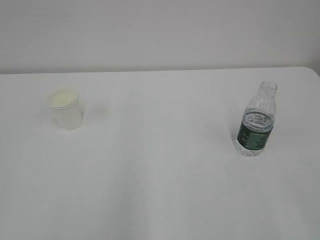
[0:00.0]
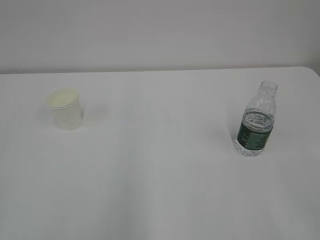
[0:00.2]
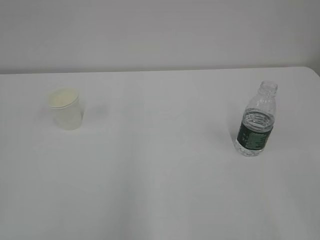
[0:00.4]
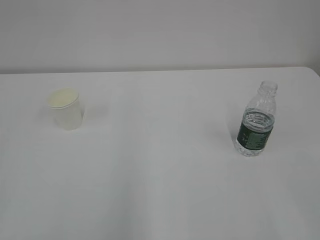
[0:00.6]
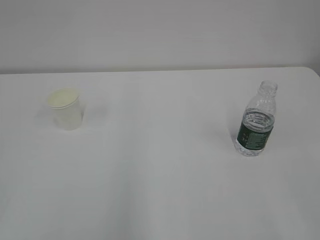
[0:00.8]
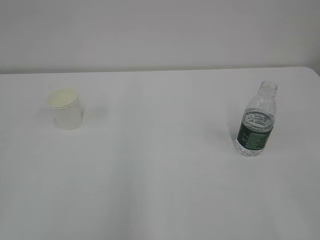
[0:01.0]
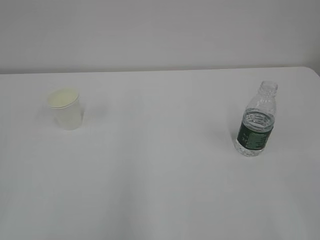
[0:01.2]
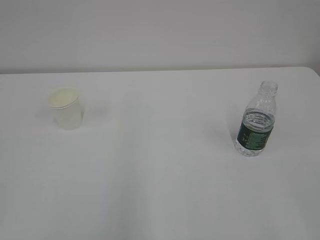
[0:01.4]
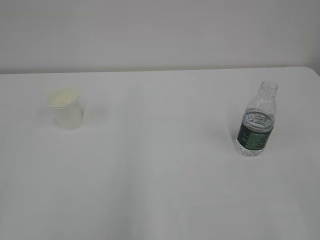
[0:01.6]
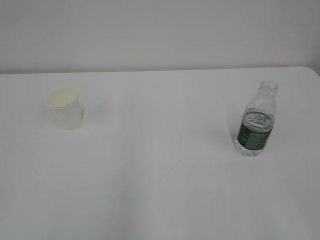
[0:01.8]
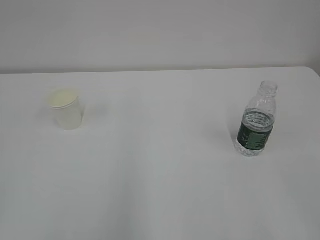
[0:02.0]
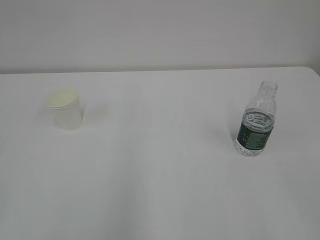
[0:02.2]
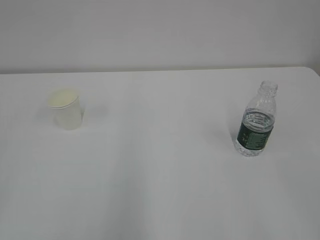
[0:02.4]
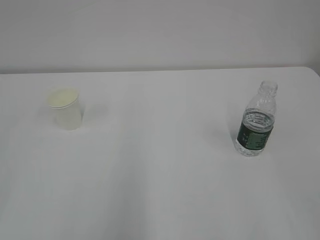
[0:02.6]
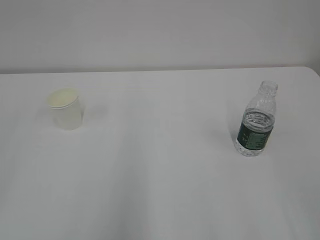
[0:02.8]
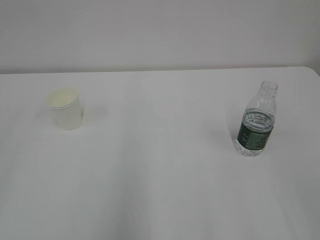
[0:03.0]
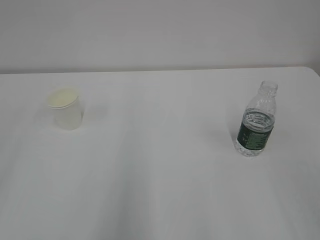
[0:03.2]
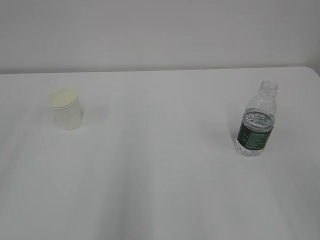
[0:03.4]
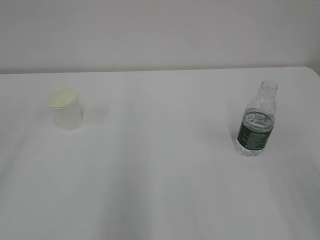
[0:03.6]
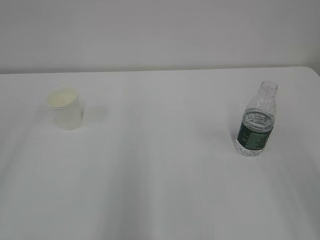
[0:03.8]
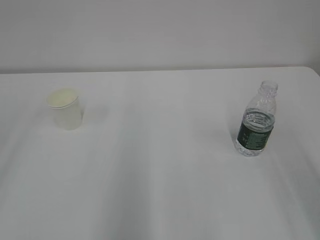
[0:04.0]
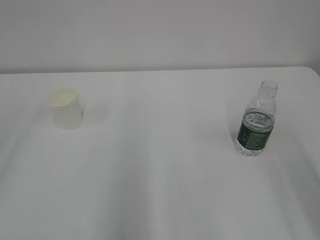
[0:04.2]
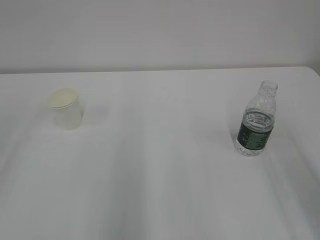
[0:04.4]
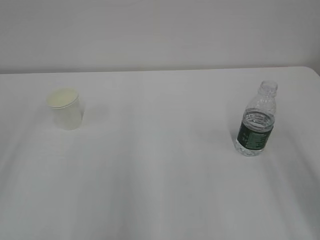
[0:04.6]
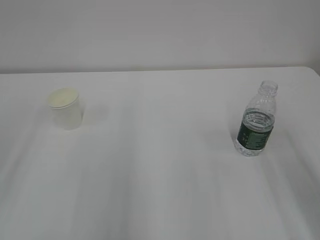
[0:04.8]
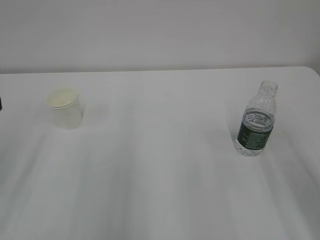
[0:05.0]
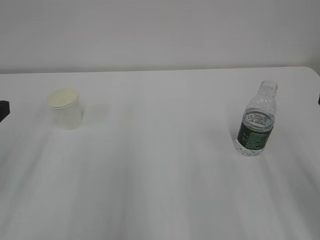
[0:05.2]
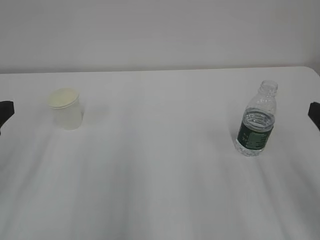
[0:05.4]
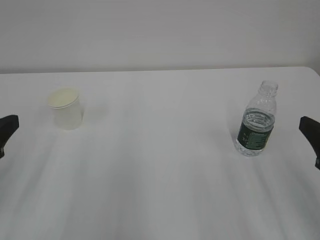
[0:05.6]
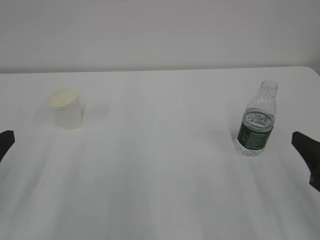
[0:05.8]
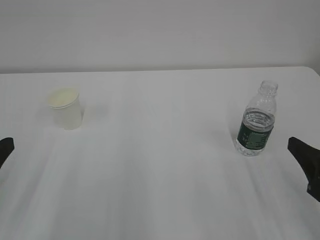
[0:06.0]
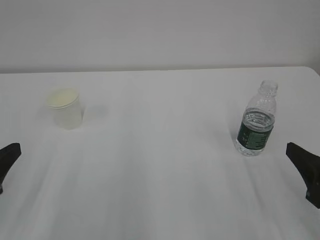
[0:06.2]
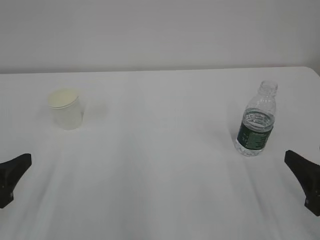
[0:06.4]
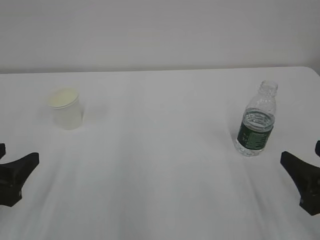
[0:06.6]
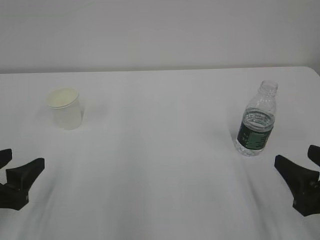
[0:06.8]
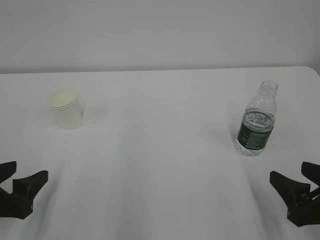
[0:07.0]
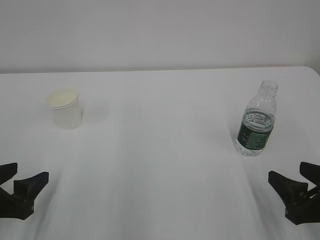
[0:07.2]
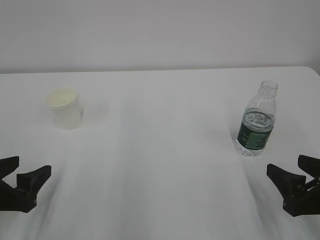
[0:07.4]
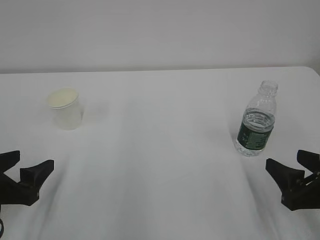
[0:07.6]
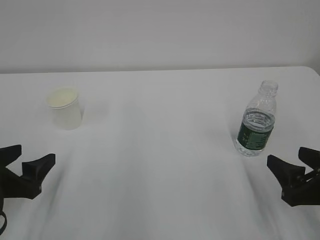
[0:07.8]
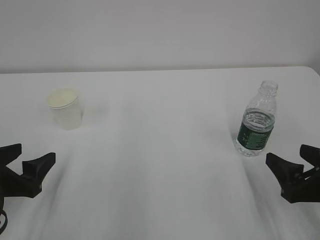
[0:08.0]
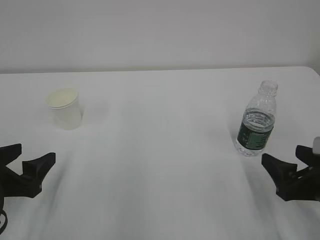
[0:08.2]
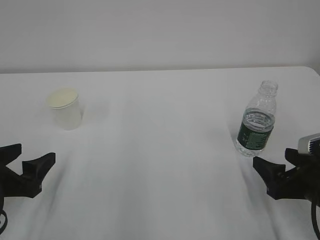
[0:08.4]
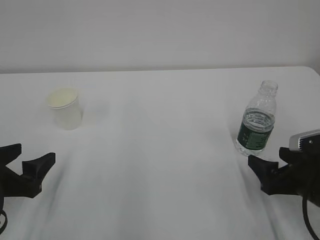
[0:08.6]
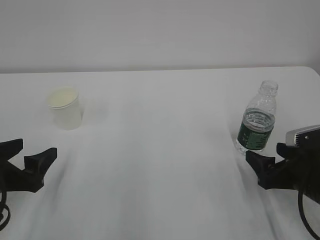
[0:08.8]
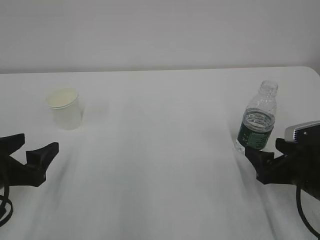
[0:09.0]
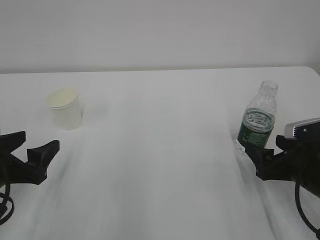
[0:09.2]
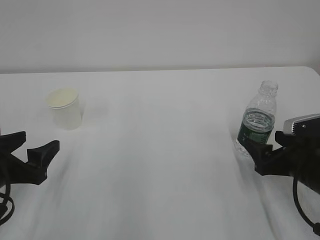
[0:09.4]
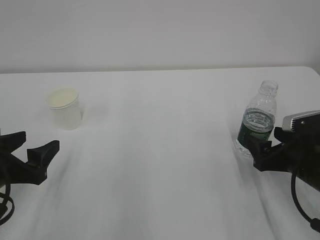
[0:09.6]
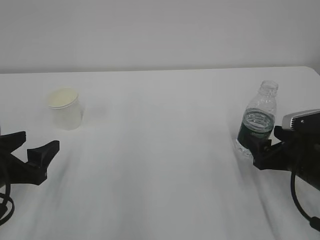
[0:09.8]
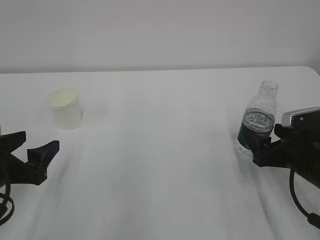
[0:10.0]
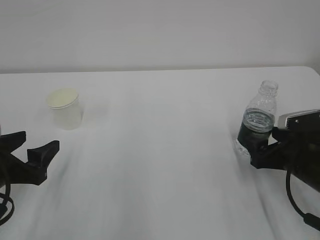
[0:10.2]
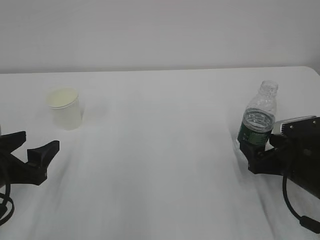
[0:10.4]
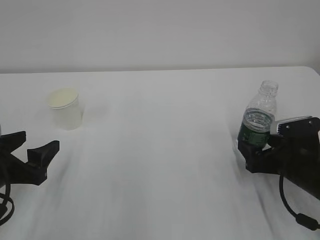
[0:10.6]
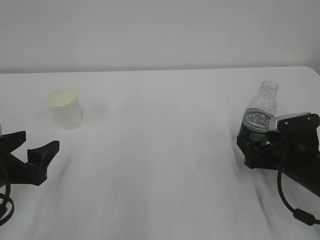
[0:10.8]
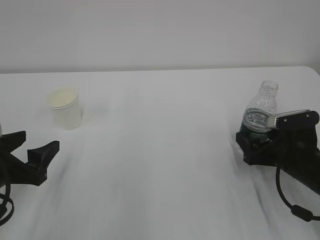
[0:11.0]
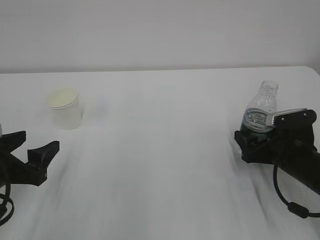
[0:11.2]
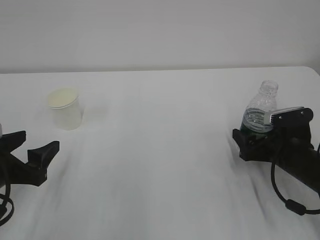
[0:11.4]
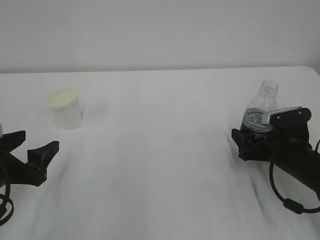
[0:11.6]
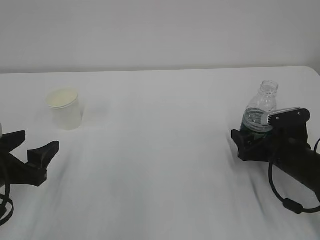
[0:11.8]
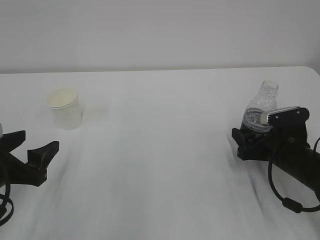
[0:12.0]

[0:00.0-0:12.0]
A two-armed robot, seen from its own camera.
0:04.4 to 0:06.0: The right gripper is displaced downward by roughly 10 cm.
0:06.0 to 0:07.6: Both grippers travel together downward, about 5 cm. The left gripper opens up.
0:07.6 to 0:09.0: The right gripper goes about 5 cm forward, and opens up.
0:09.0 to 0:10.4: The grippers stay close to where they were, moving slightly.
0:10.4 to 0:12.0: The right gripper closes.

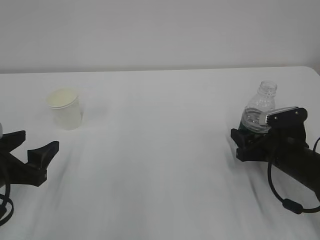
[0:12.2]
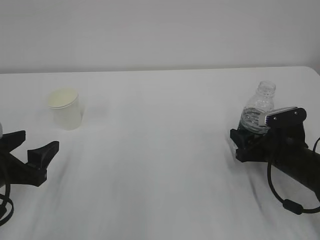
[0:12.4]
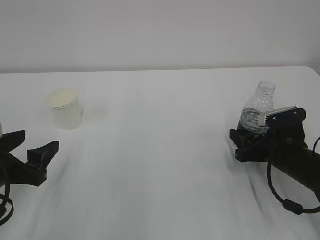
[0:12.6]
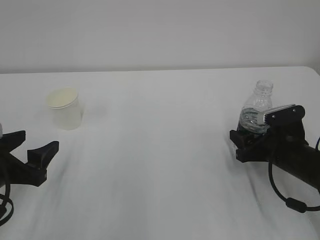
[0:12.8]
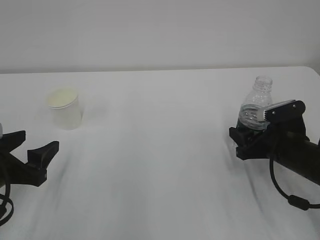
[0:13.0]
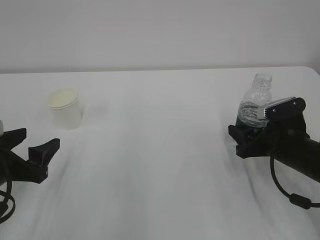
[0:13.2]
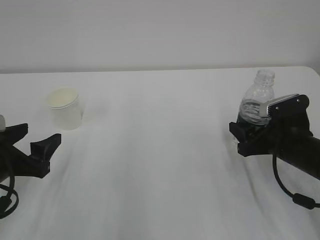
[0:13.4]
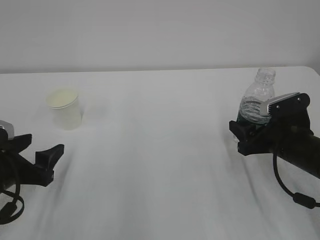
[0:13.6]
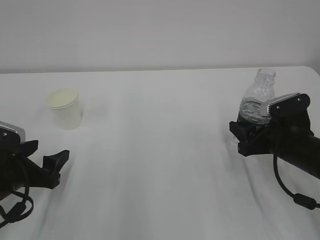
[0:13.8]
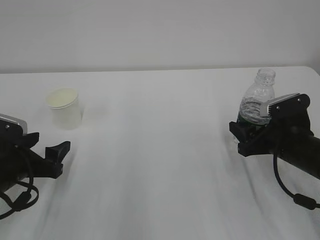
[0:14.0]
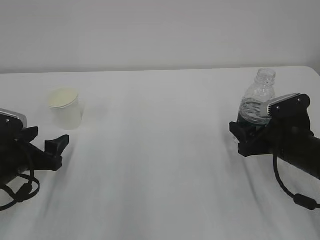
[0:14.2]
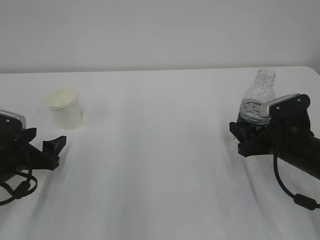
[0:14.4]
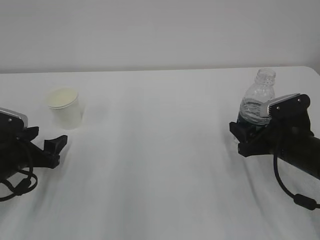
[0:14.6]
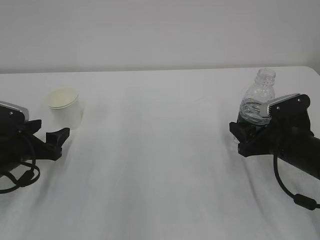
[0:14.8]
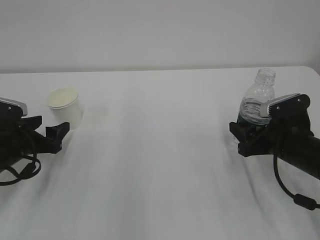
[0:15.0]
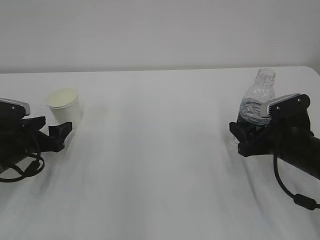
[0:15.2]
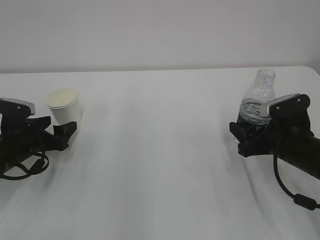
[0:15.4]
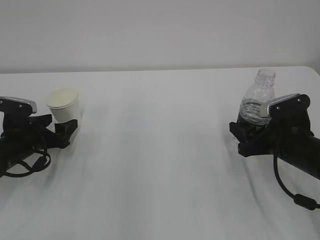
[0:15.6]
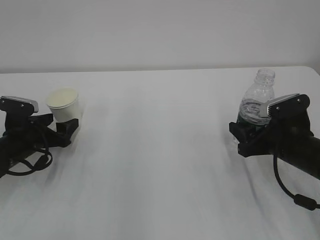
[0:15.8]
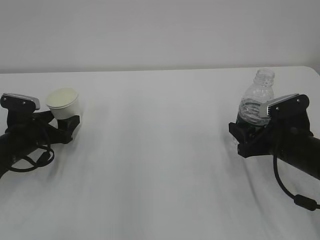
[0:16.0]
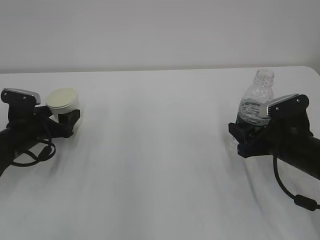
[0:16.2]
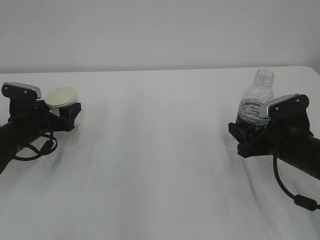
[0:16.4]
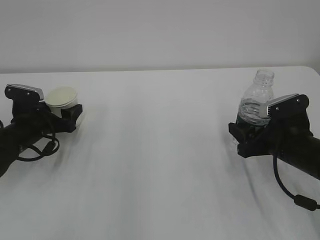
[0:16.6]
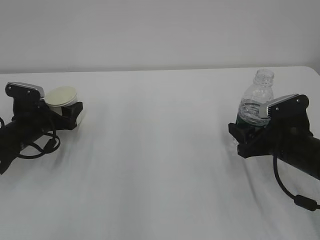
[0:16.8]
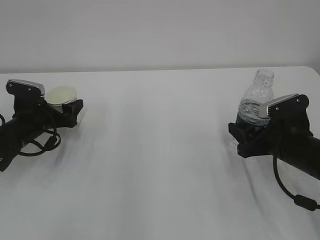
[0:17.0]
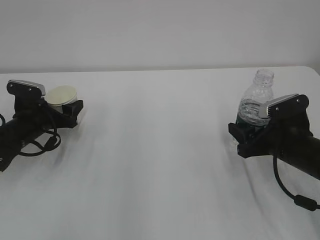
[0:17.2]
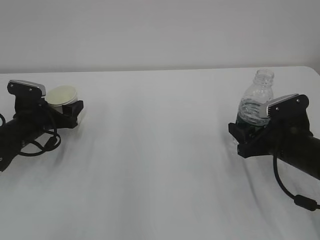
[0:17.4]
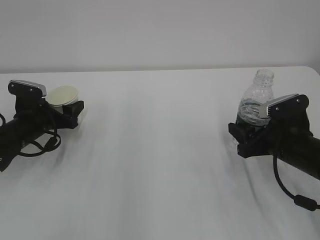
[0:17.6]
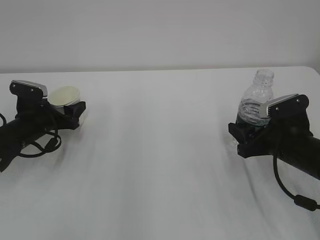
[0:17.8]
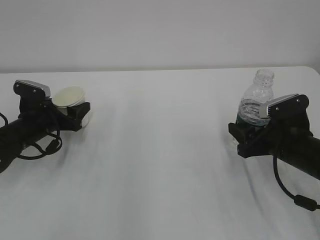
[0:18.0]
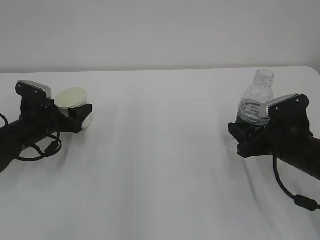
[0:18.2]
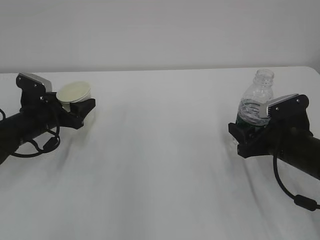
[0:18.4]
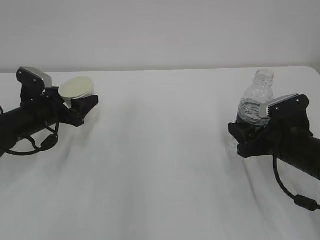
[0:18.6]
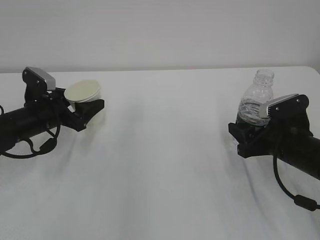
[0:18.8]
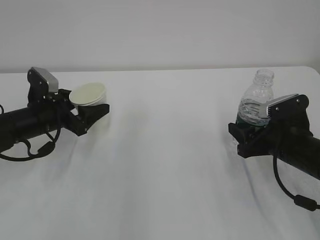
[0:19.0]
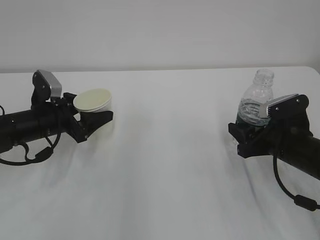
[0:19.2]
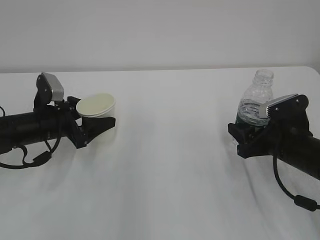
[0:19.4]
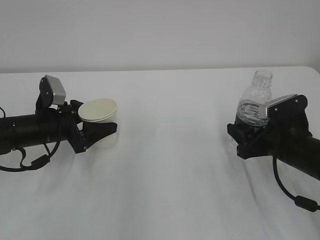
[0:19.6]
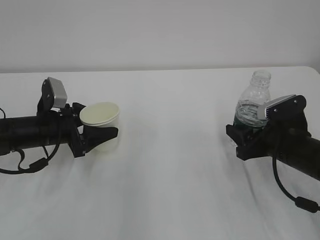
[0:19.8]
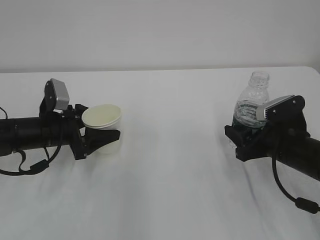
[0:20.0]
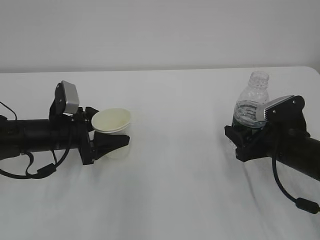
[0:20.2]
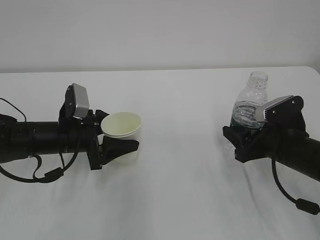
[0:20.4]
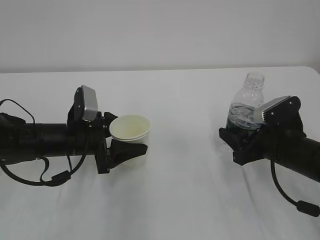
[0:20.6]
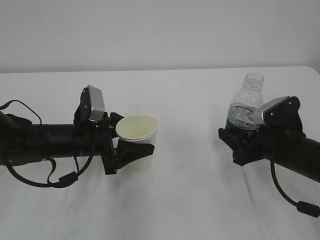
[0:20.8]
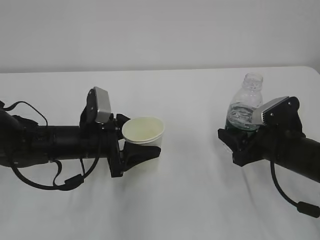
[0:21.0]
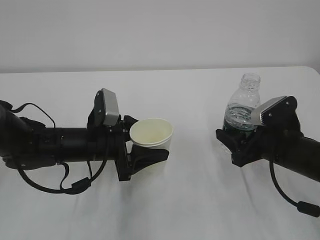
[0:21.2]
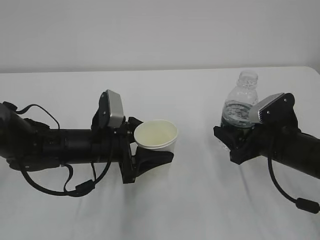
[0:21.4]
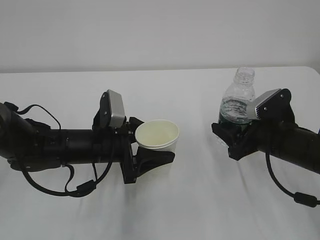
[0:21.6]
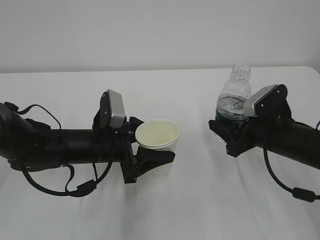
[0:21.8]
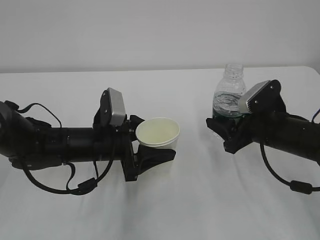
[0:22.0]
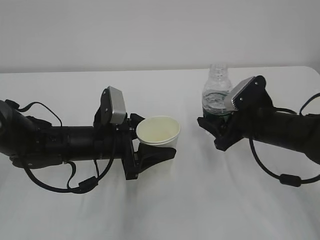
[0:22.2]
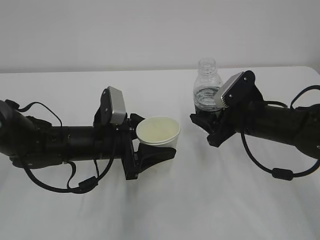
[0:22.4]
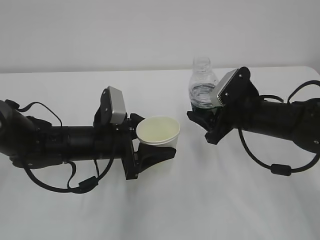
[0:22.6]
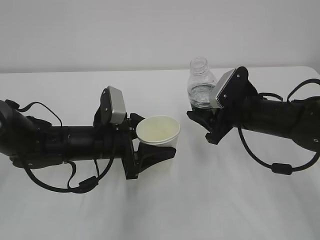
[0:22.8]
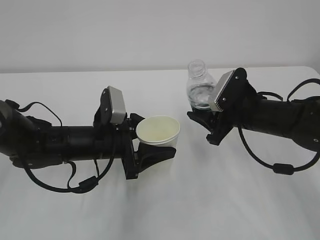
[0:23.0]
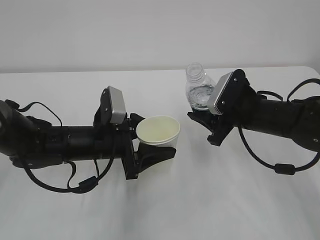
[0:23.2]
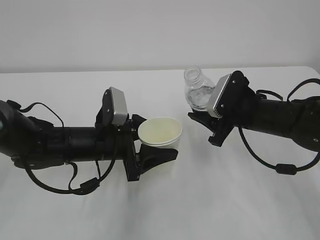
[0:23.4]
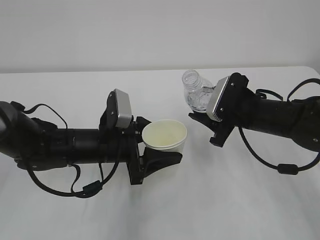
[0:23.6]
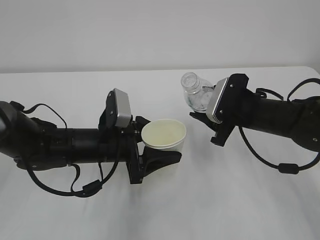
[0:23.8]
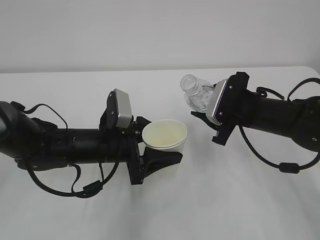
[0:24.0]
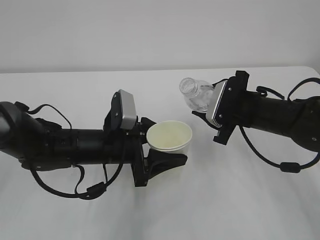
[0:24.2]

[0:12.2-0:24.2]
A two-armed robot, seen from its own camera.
0:12.2 to 0:13.8: The grippers move only a little.
0:13.8 to 0:15.2: The left gripper goes approximately 10 cm forward.
0:15.2 to 0:16.6: The left gripper heads forward, covering roughly 5 cm.
0:16.6 to 0:18.2: The left gripper closes.
0:18.2 to 0:19.8: The left gripper moves some 5 cm.
0:19.8 to 0:21.2: The left gripper goes some 10 cm to the right.
0:21.2 to 0:22.6: The right gripper goes some 5 cm forward.
